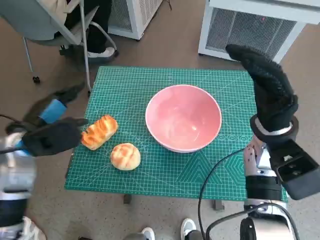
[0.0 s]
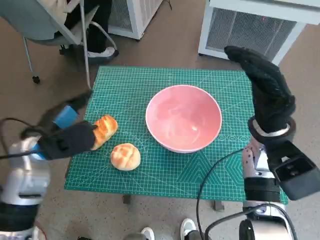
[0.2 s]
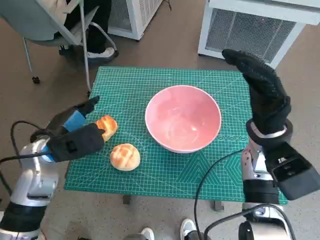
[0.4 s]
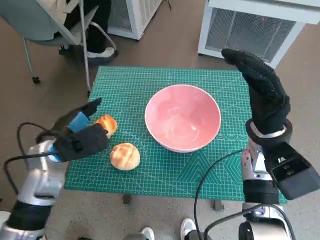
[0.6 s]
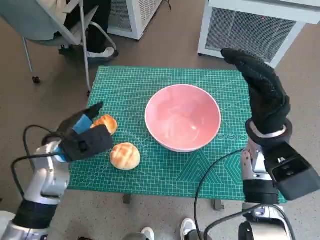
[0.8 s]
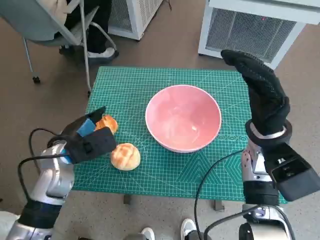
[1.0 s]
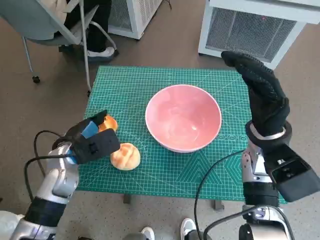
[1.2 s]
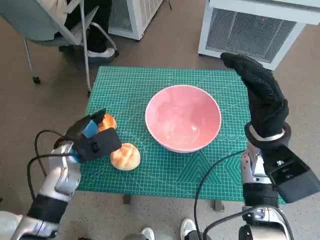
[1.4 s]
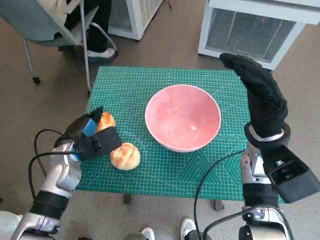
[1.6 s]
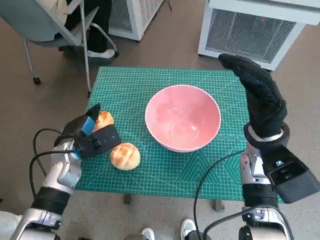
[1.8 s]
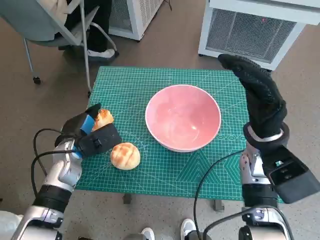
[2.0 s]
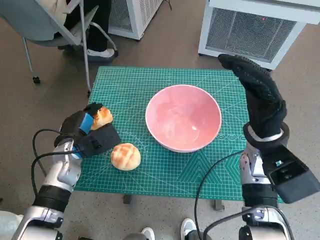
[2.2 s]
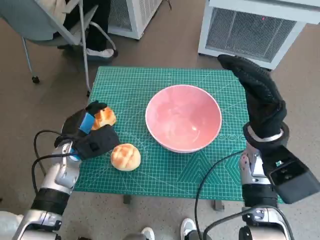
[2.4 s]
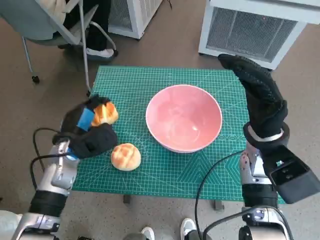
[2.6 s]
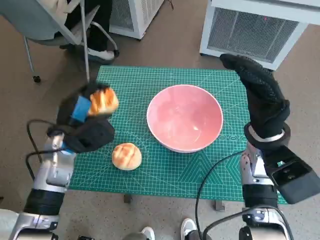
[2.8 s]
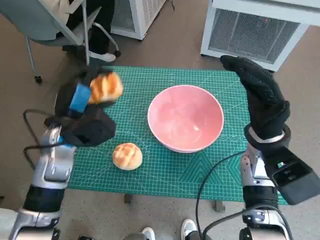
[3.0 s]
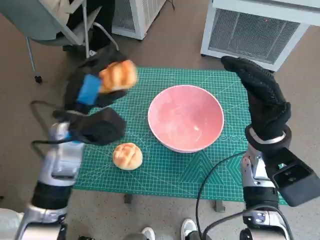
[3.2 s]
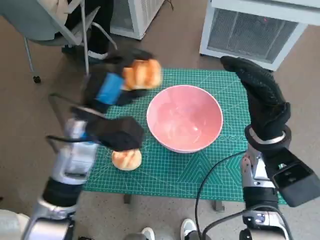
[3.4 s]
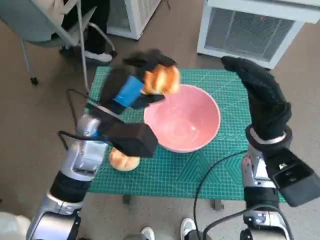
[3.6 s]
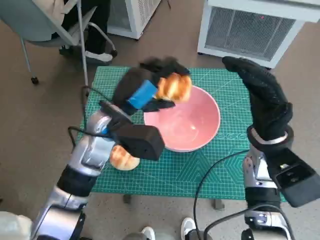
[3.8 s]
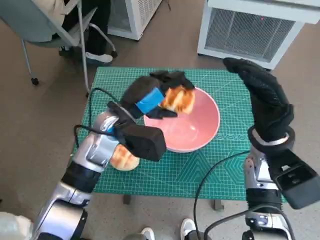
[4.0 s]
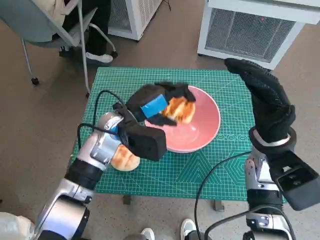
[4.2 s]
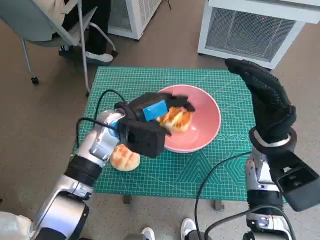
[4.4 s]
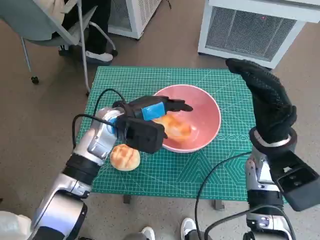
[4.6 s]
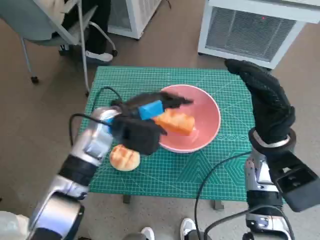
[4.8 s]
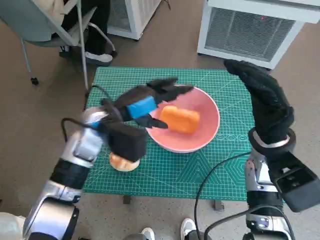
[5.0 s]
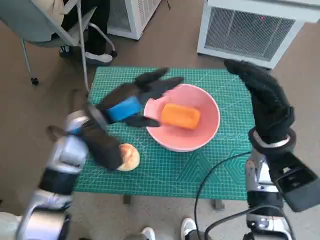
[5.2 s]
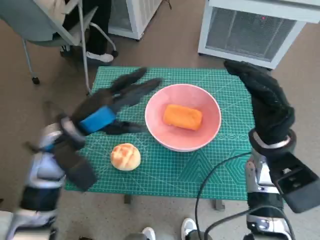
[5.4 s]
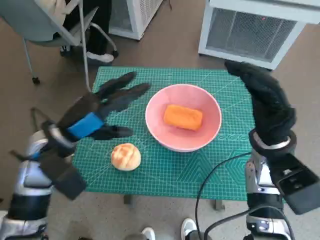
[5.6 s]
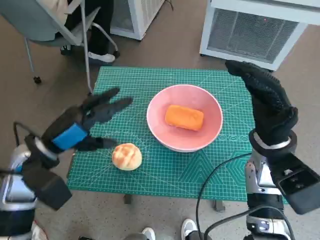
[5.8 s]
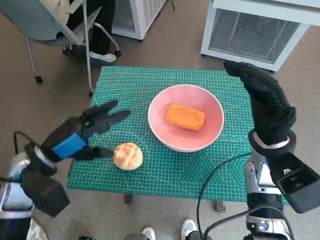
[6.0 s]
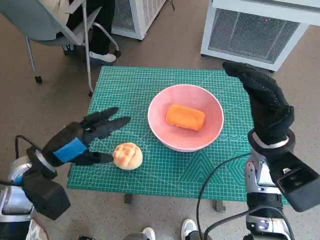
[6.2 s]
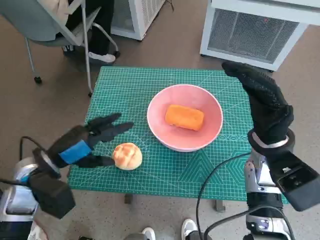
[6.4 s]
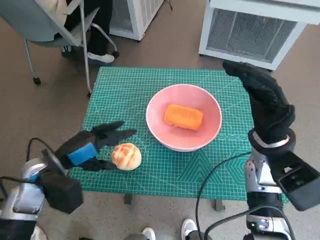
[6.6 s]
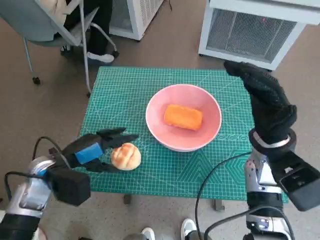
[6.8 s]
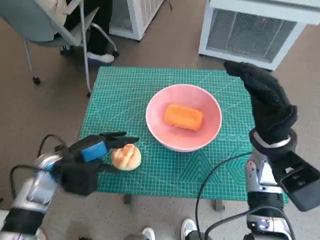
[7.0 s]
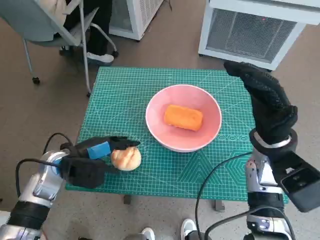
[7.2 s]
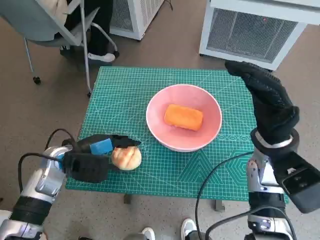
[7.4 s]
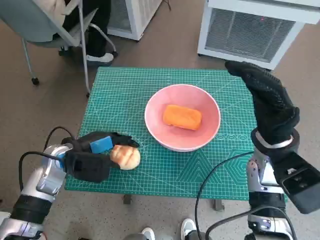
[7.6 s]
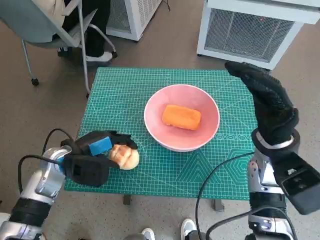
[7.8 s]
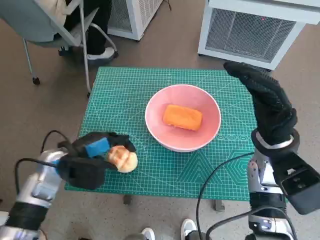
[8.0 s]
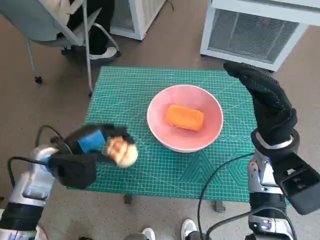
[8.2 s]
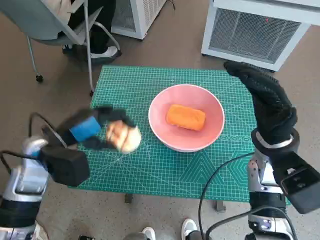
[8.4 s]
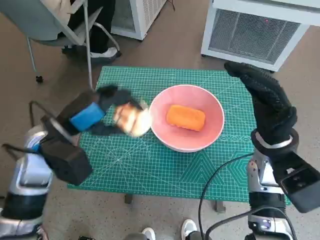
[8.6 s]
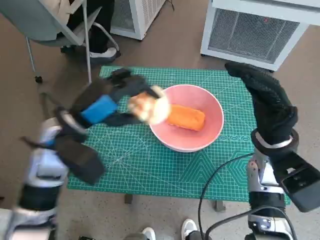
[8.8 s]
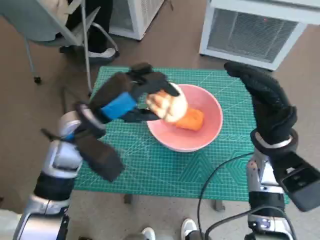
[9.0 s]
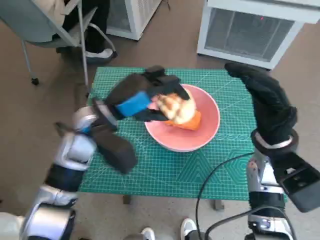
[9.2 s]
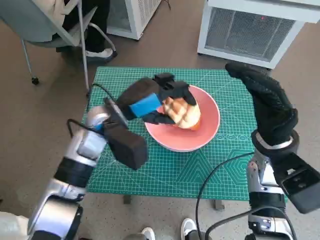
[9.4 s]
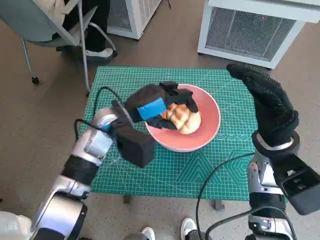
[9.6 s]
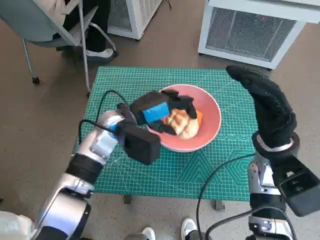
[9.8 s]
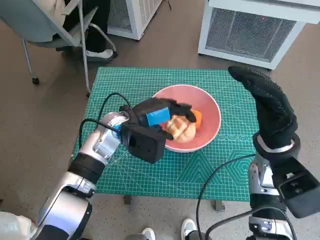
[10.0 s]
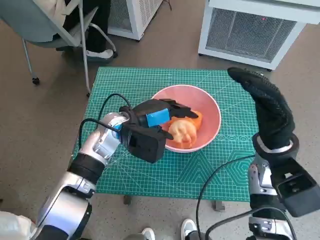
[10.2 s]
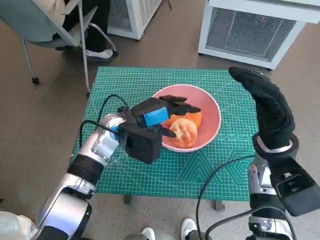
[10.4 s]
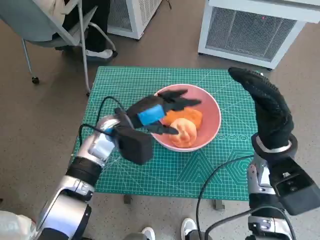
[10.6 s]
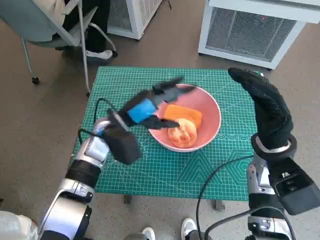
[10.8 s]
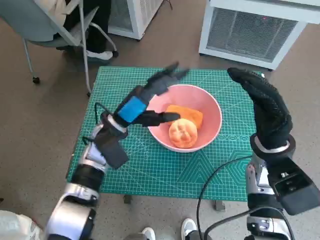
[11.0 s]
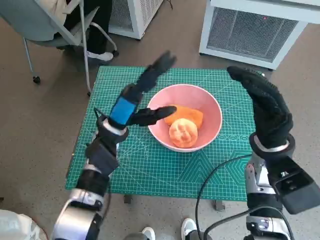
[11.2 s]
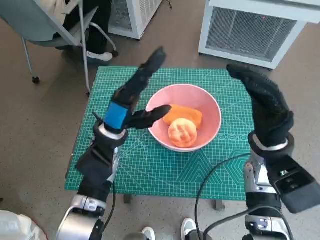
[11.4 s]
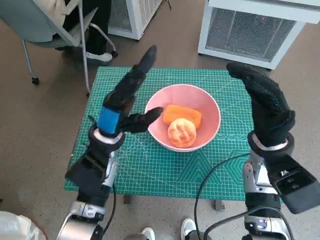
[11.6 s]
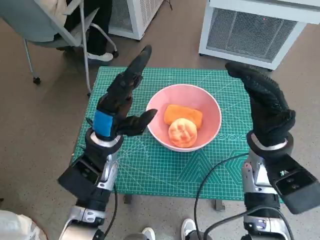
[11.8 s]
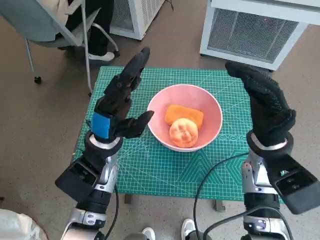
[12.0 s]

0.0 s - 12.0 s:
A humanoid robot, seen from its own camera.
Task of the whole recording: Push the bowl to the center of the table and put the bread into the bowl.
Step, 0.0 s - 2.0 s: Grasp the long bread with left hand.
Step, 2.2 s - 5.0 s: Place the long bread in pink bowl with left hand.
Step, 5.2 s - 7.8 s: Grasp the round bread with left hand.
Step, 8.2 s - 10.4 s: Place the round bread in pink bowl with left hand.
0.0 s - 1.6 s: The left hand moves downward and to the right, roughly 10 cm.
1.6 s - 3.0 s: The left hand travels upward by roughly 5 cm.
3.0 s - 4.4 s: The left hand heads to the right, covering about 10 cm.
4.4 s - 6.0 s: The left hand heads to the left and backward, covering roughly 15 cm.
6.0 s - 7.6 s: The left hand heads downward, covering some 5 cm.
7.6 s - 9.0 s: The left hand travels upward and to the right by some 10 cm.
9.0 s - 10.4 s: The left hand is displaced downward by approximately 5 cm.
10.4 s - 12.0 s: The left hand goes roughly 5 cm backward.

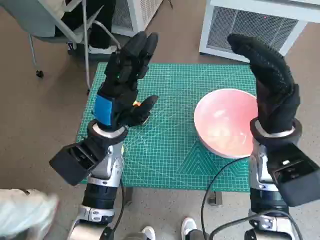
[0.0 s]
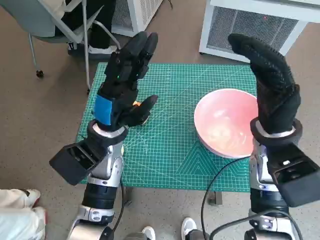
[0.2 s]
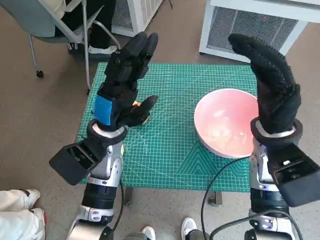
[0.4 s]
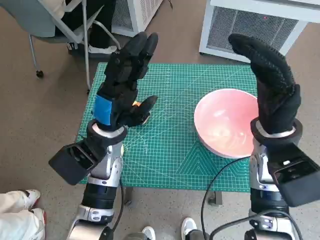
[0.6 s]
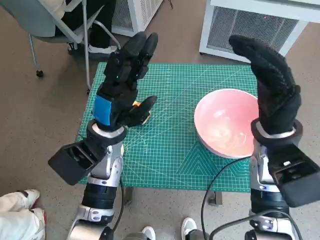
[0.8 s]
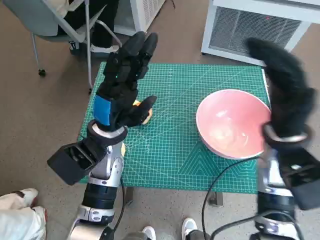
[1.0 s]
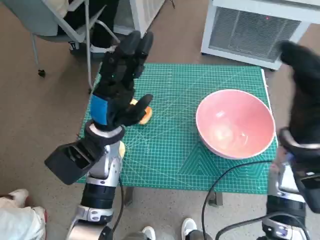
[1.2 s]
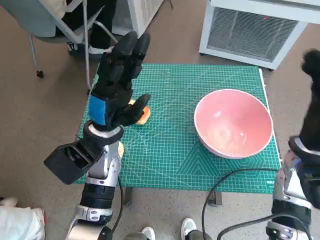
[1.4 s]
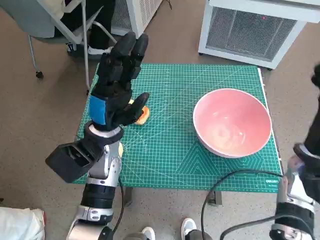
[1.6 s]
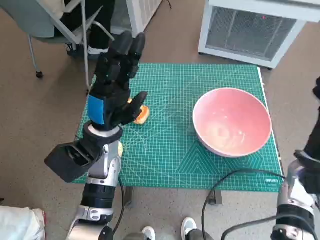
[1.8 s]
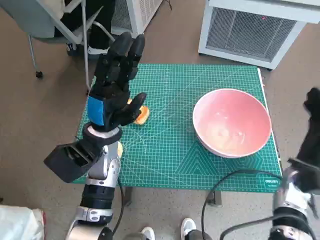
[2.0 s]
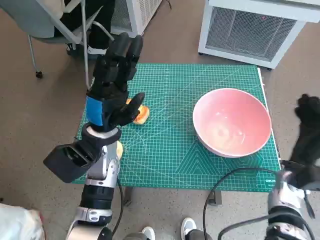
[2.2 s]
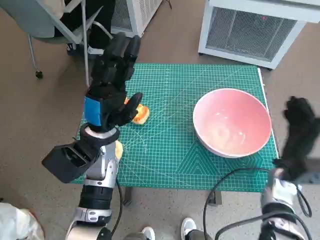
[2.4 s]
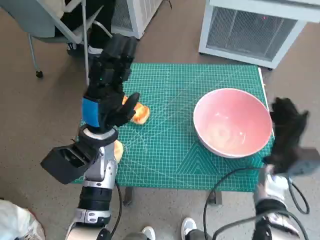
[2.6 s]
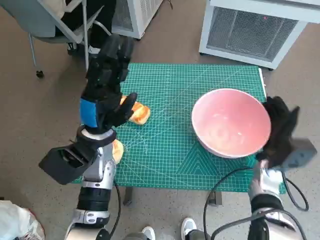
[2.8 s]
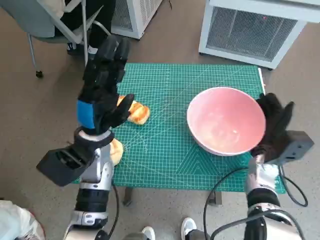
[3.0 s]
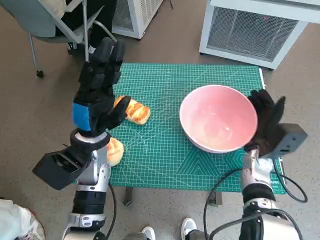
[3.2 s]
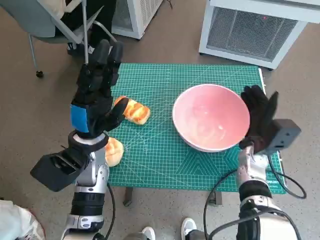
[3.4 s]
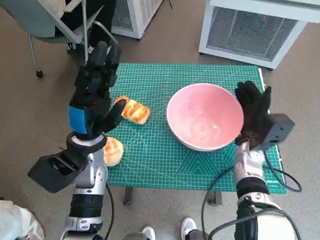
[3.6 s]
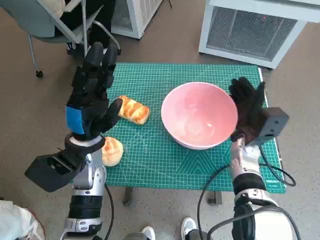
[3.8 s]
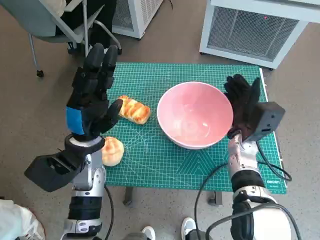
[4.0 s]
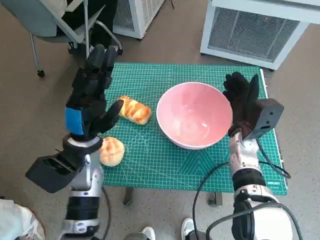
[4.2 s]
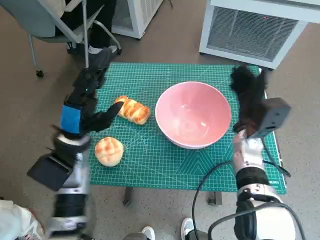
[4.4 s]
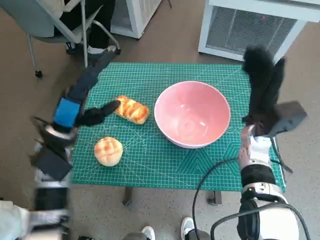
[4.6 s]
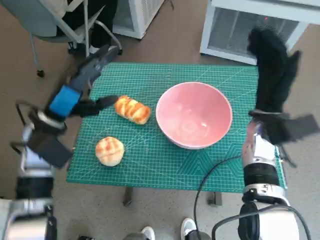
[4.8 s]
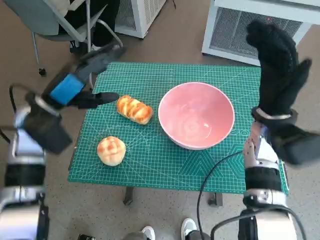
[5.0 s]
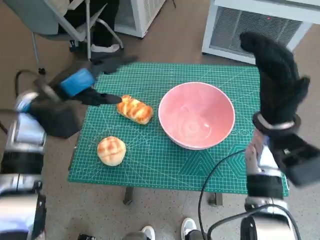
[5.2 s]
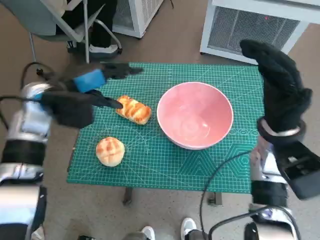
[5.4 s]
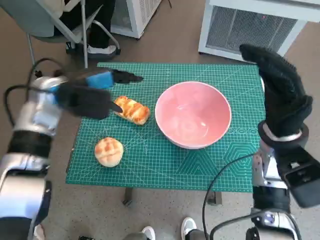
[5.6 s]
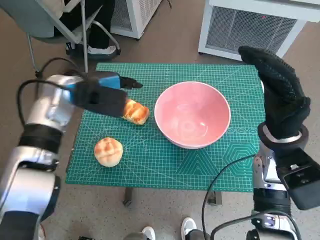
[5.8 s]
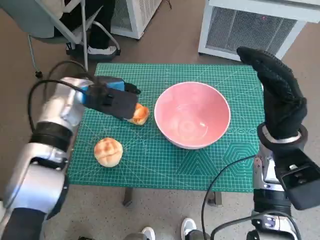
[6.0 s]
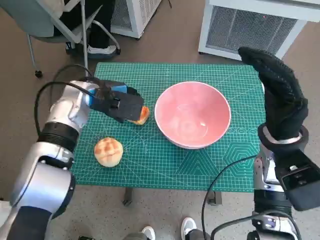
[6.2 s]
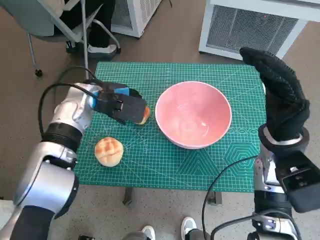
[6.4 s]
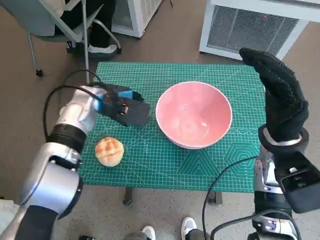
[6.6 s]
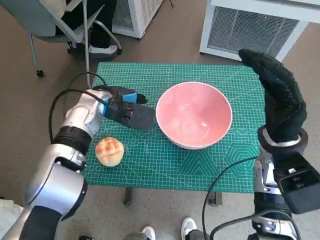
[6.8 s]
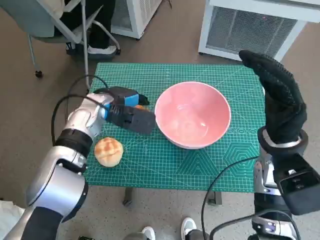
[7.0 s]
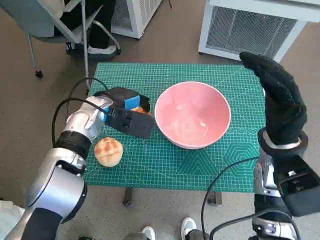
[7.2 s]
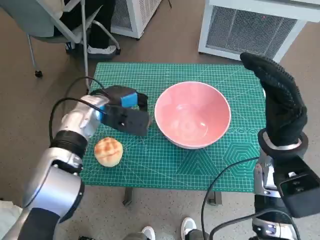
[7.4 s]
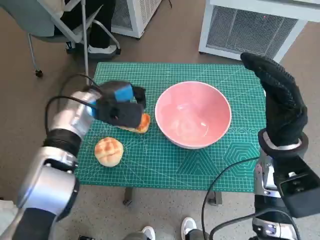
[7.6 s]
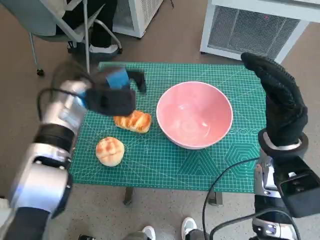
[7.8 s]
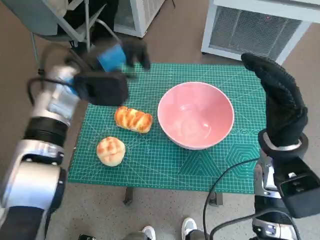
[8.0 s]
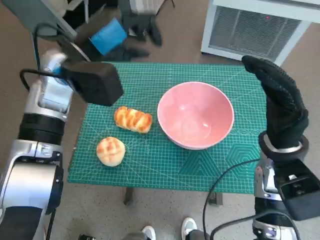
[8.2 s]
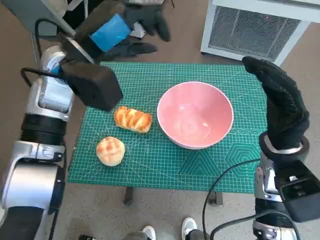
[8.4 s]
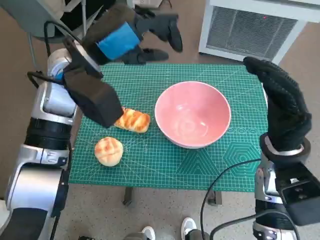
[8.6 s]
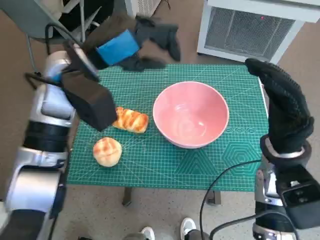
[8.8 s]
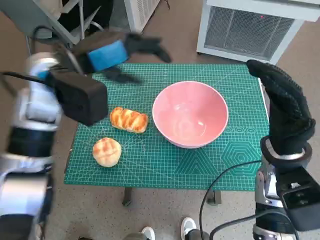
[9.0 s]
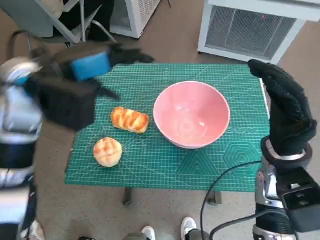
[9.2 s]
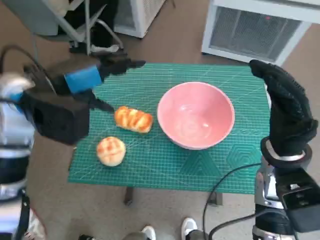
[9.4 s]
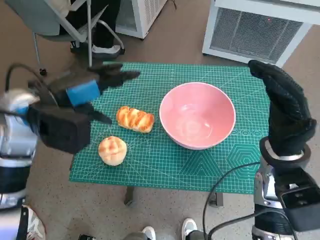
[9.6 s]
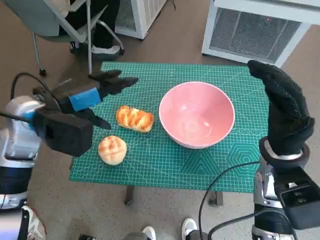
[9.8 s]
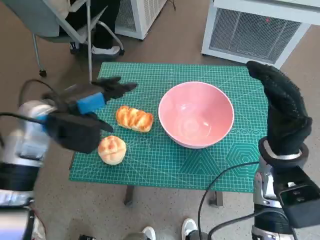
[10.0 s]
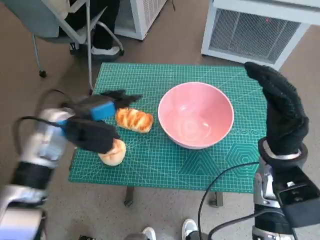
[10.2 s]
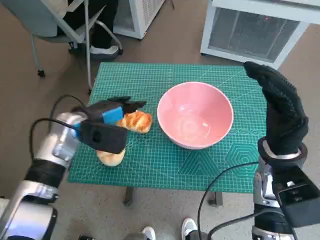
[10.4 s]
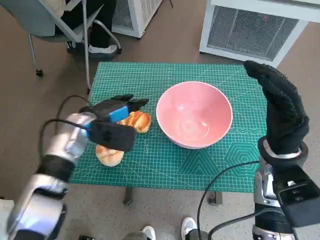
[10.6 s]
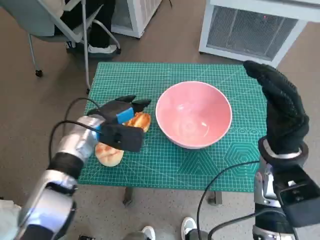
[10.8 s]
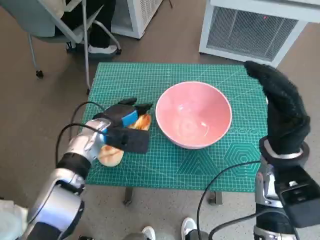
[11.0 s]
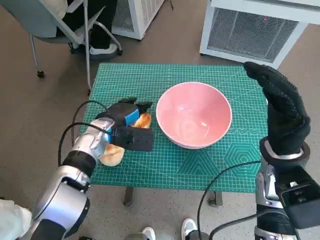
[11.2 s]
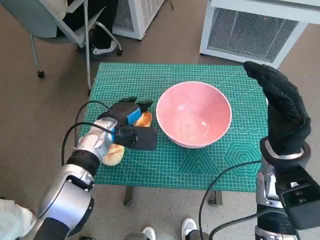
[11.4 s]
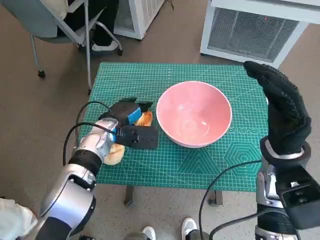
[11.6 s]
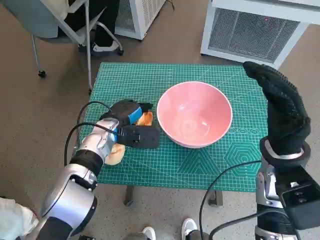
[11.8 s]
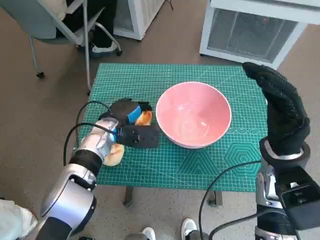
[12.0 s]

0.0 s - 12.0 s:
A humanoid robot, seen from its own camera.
Task of the whole recording: Push the bowl to the center of the table and put the bread into the bowl.
Step, 0.0 s - 4.4 s: Move the pink bowl to the center of table with right hand.
Step, 4.6 s - 12.0 s: Grasp the long bread with left hand.
1.6 s - 3.0 s: The right hand travels downward by roughly 10 cm.
3.0 s - 4.4 s: The right hand moves roughly 10 cm.
4.4 s - 6.0 s: The right hand is displaced upward and backward by approximately 10 cm, while the left hand goes about 10 cm forward and upward.
7.6 s - 9.0 s: The left hand moves upward, about 10 cm.
9.0 s - 10.4 s: The left hand is displaced downward by about 15 cm.
10.4 s - 12.0 s: The left hand goes approximately 10 cm downward and to the right.
